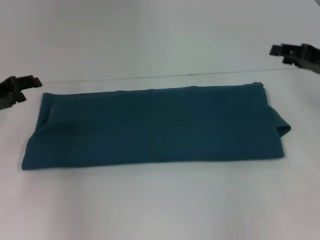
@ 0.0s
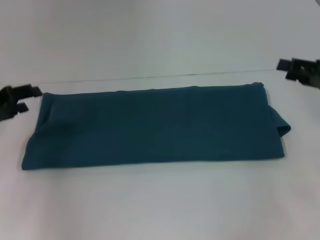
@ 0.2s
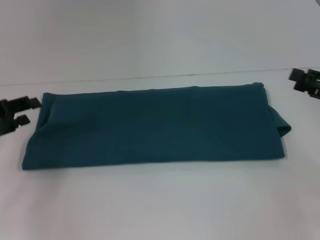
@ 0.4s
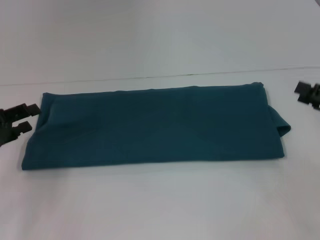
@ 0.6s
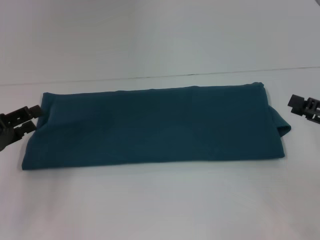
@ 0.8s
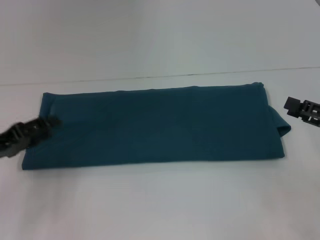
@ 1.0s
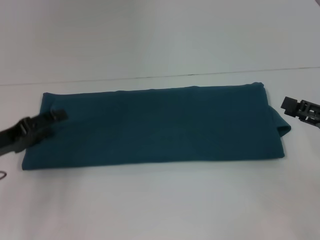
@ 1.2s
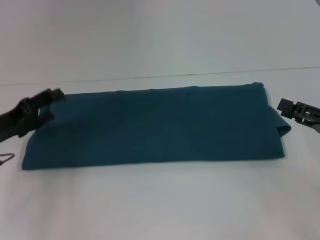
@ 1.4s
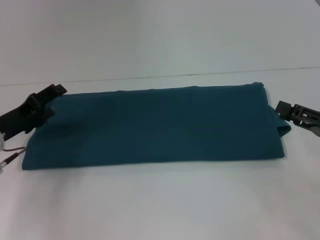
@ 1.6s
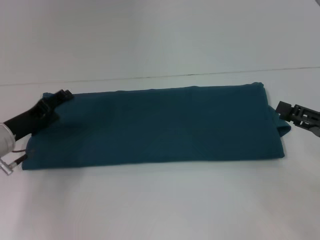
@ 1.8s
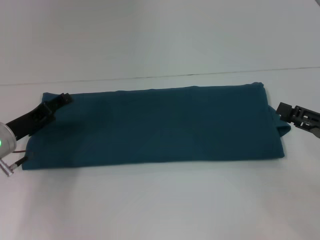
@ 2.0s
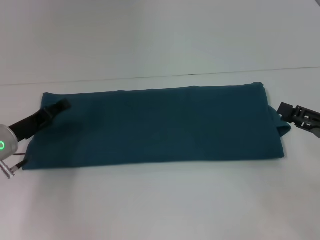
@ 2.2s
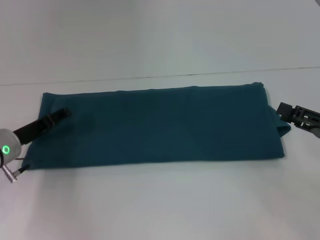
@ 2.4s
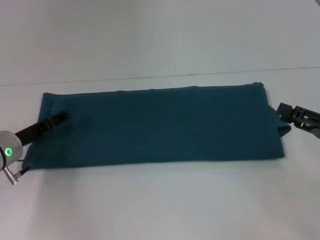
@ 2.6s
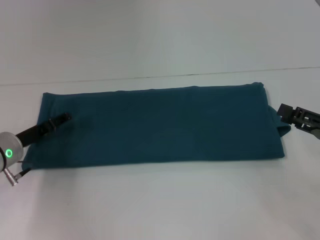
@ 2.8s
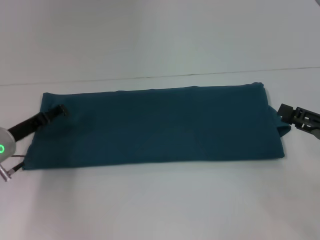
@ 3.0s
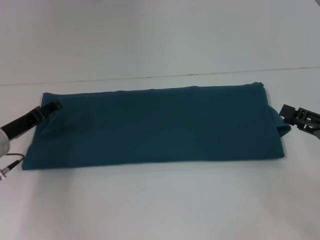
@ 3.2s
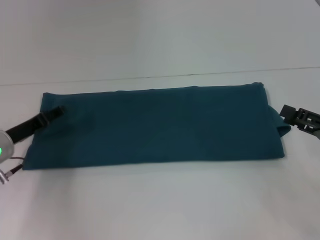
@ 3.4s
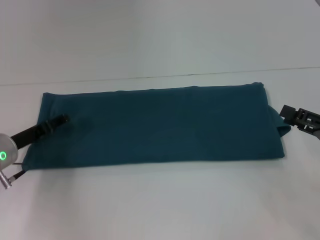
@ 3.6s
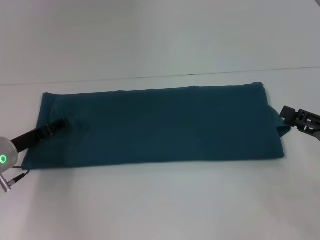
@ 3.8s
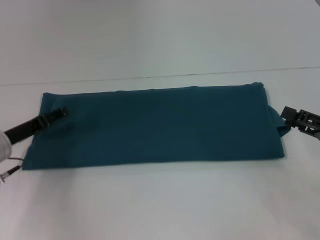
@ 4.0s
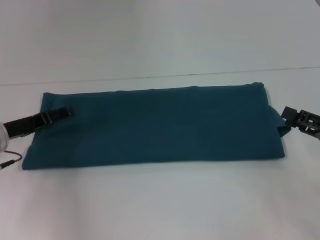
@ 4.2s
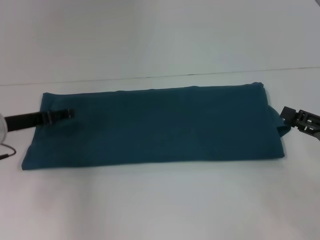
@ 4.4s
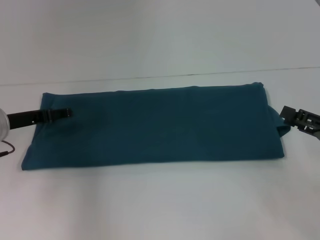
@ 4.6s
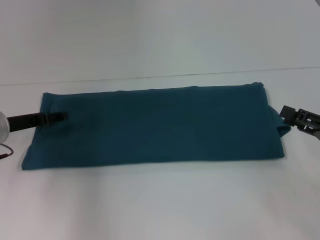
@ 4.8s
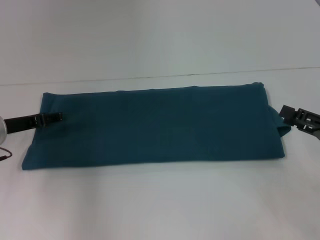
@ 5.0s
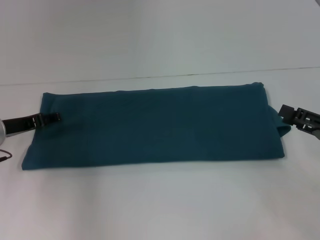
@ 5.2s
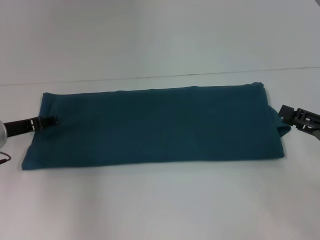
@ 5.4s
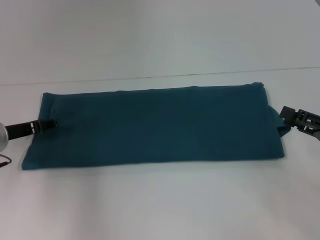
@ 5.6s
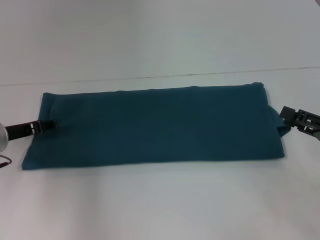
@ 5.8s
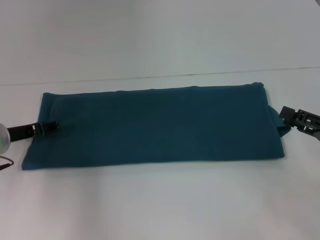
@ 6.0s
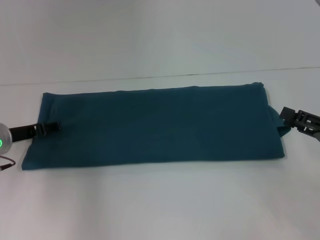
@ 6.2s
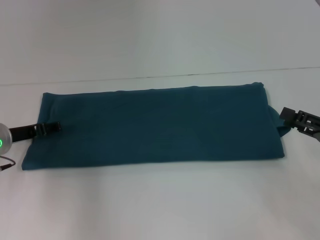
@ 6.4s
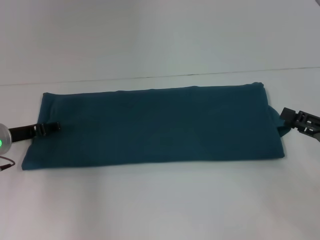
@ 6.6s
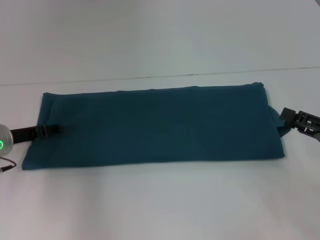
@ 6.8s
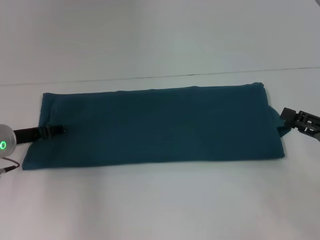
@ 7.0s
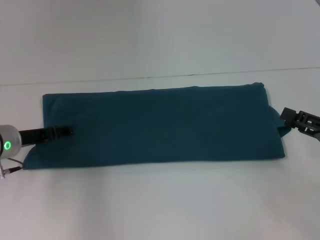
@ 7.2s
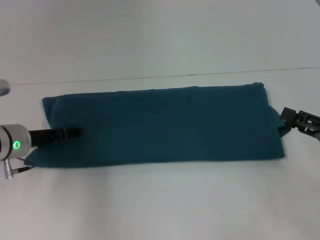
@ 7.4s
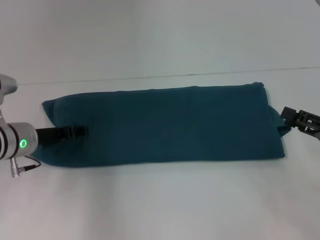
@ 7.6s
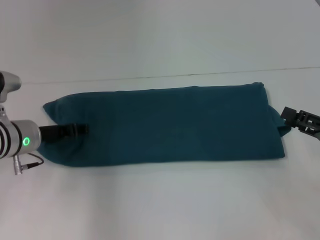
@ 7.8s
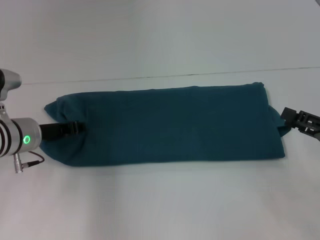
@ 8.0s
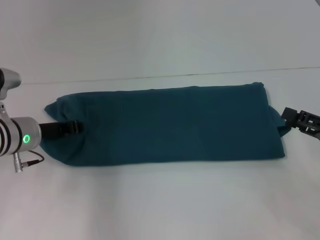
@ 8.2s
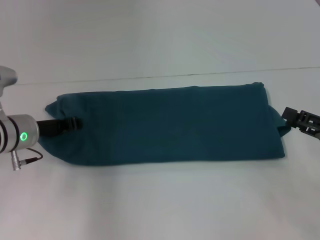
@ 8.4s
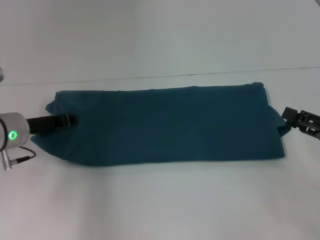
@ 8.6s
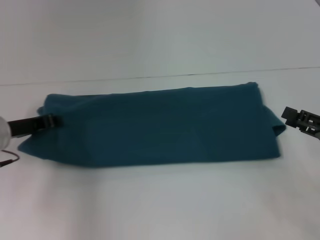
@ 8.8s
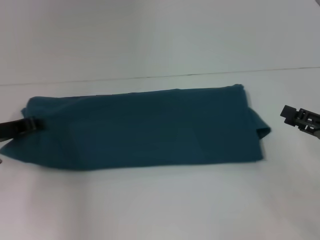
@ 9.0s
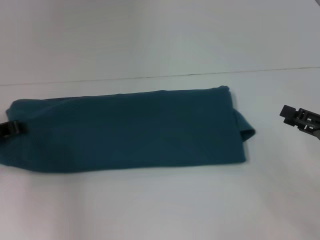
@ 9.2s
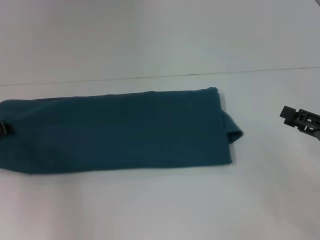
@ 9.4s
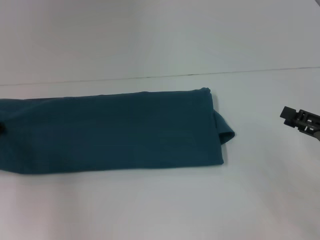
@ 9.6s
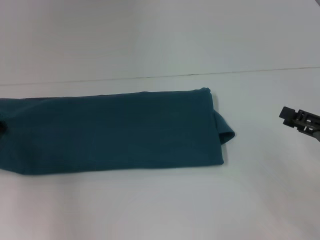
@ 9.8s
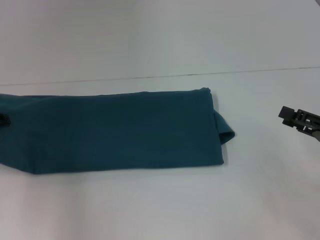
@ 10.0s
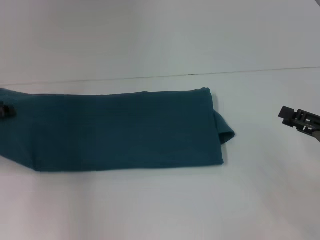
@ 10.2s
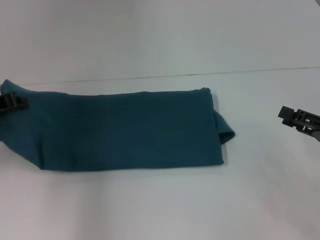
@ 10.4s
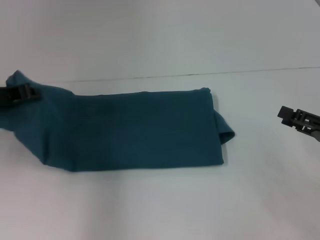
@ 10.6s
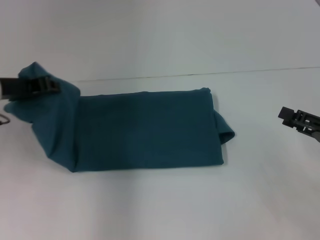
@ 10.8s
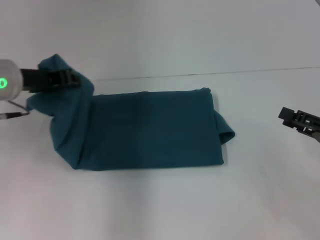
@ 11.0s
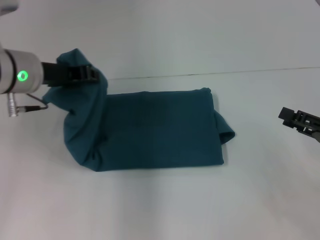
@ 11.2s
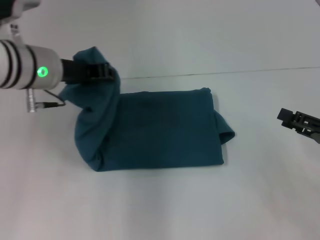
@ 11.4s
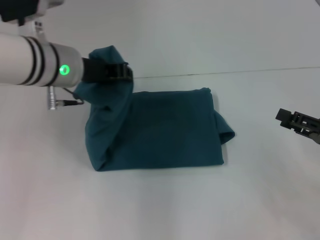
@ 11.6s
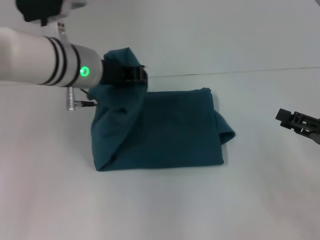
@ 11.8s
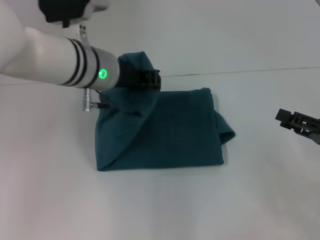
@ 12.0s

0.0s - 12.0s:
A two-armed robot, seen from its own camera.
0.0s - 1.6s: The right gripper goes roughly 10 cm backward and downward. The left gripper shifts about 5 cm downward.
4.4s - 7.6s: There are only small adjustments of the grippers.
7.6s - 9.0s: The left gripper is displaced to the left by some 5 cm, and closes its fingers.
9.0s - 10.4s: The left gripper shifts roughly 5 cm upward.
10.4s - 12.0s: The left gripper heads to the right, covering approximately 20 cm.

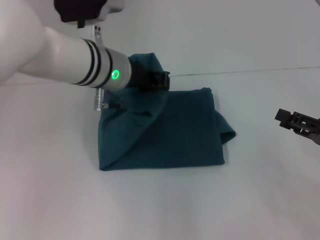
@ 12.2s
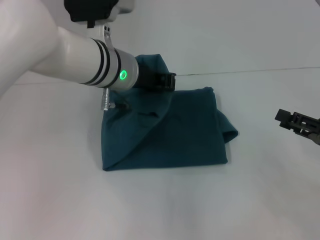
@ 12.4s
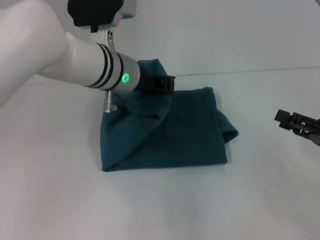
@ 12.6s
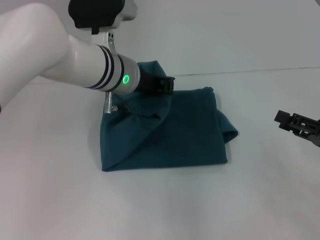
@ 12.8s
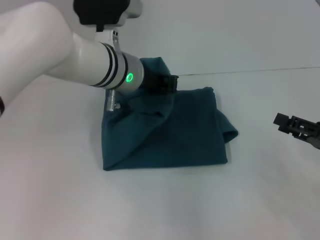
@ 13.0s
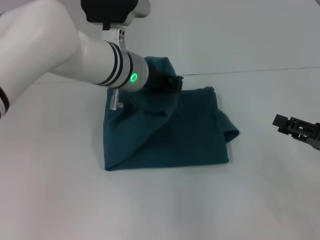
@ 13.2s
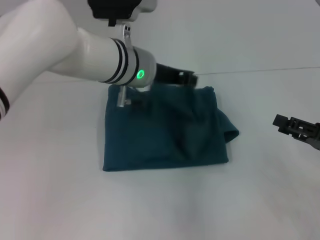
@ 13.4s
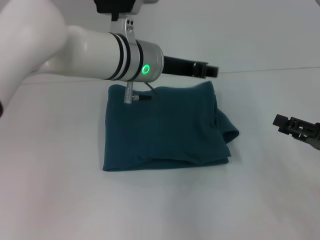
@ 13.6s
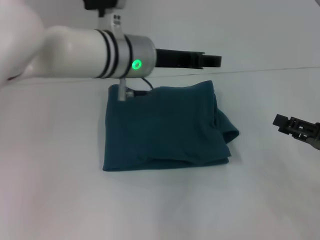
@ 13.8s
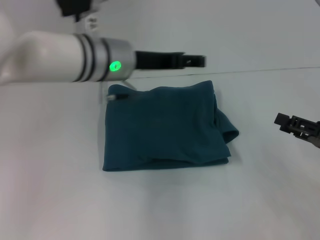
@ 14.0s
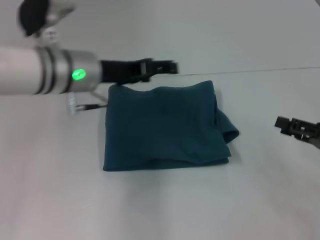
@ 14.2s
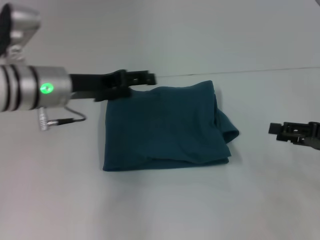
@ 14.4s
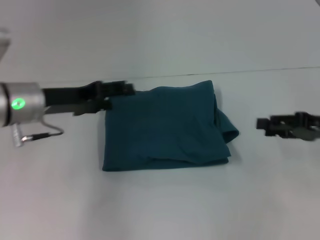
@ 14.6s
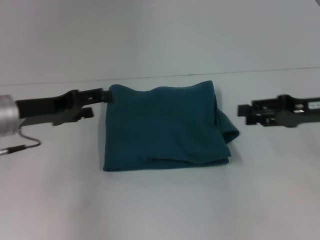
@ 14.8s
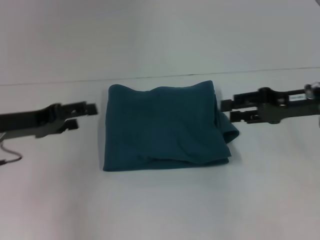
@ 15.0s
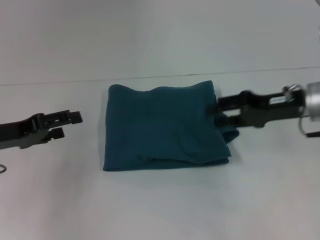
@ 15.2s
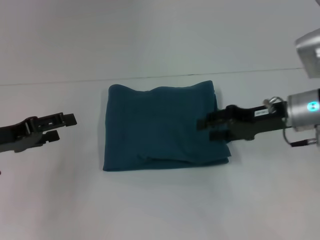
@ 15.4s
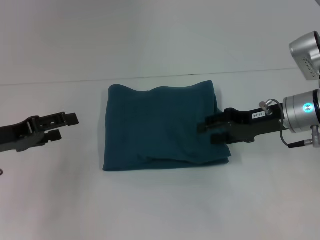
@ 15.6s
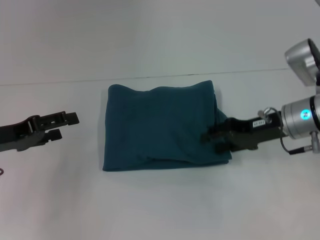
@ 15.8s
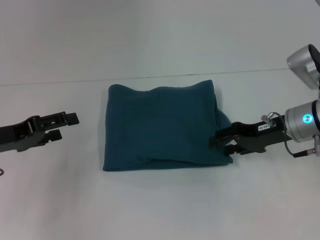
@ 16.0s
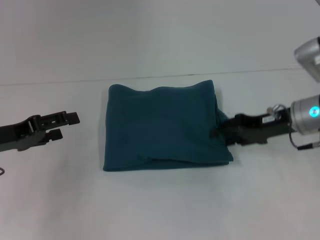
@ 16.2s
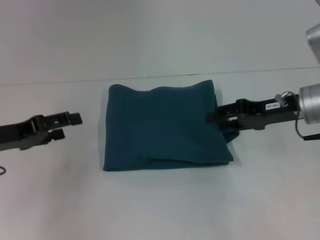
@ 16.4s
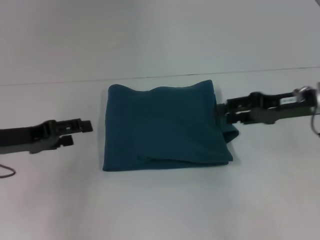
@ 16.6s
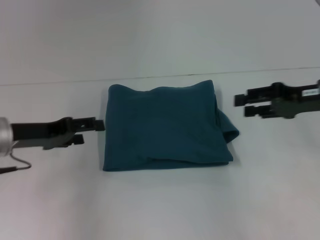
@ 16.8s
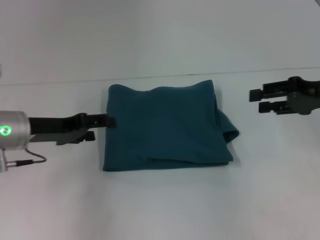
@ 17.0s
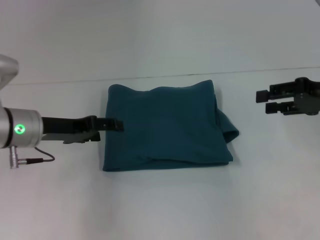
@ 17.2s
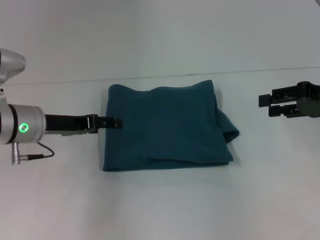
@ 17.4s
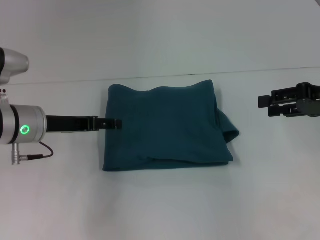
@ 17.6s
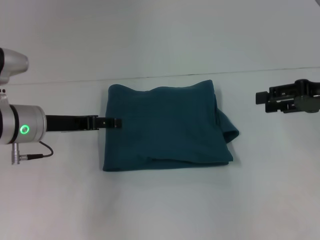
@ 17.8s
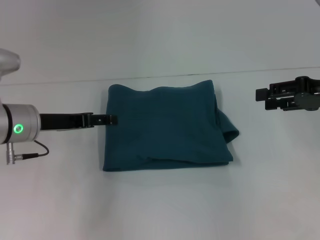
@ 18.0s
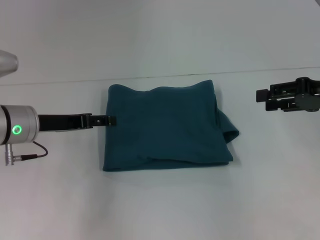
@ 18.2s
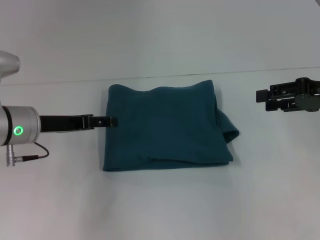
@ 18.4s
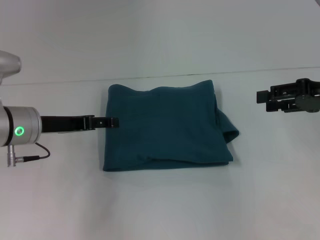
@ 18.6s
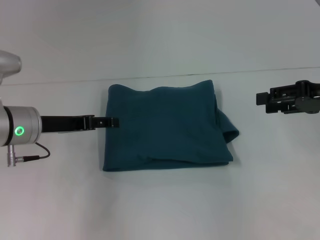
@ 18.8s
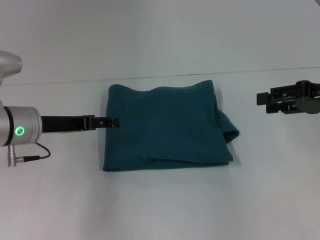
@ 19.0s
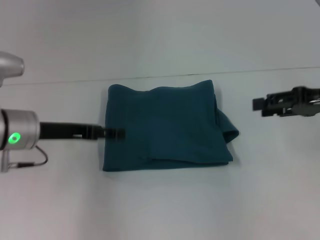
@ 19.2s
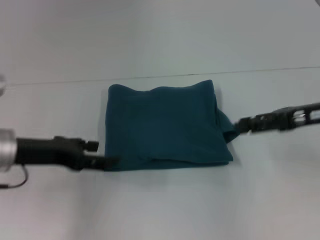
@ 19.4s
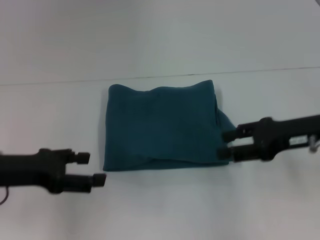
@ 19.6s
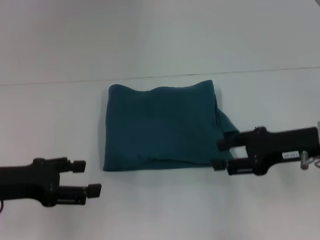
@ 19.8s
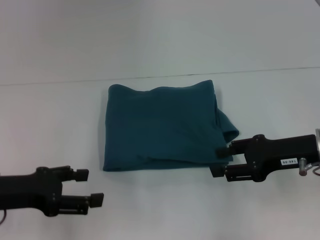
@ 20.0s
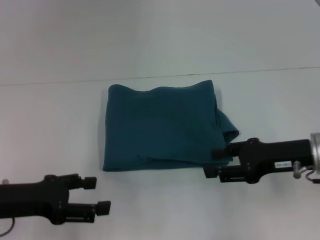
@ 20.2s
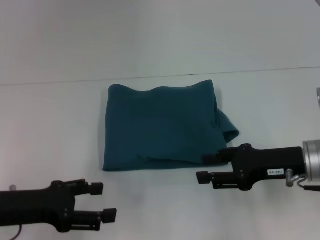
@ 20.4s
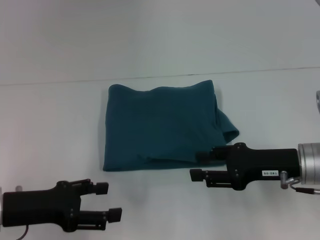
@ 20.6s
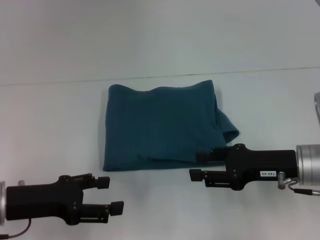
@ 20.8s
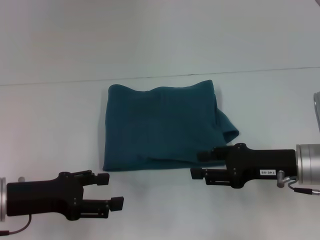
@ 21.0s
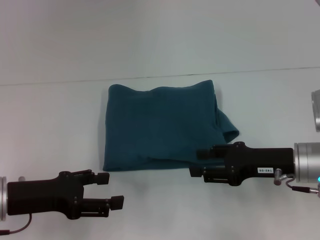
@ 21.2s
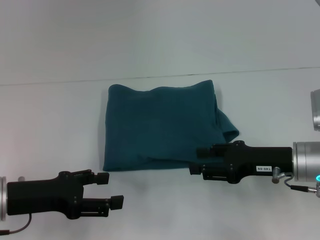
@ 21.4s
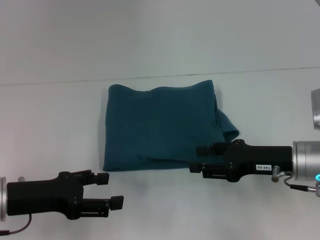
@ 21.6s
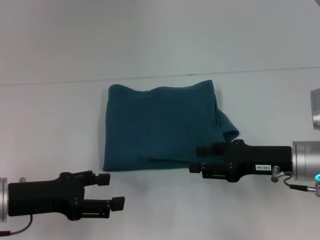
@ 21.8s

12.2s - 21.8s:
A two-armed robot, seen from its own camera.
12.2s - 13.8s: The left gripper opens.
13.8s - 15.4s: The left gripper shifts approximately 25 cm to the left, and opens up. Meanwhile the right gripper is displaced forward and to the left by approximately 15 cm.
15.4s - 17.0s: The two grippers go approximately 5 cm to the right.
17.0s - 18.6s: The grippers move only a little.
18.6s - 20.2s: The right gripper is displaced to the left, downward and backward by approximately 10 cm, while the left gripper goes approximately 10 cm backward.
20.2s - 21.8s: The grippers stay close to where they were, moving slightly.

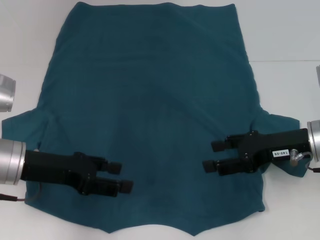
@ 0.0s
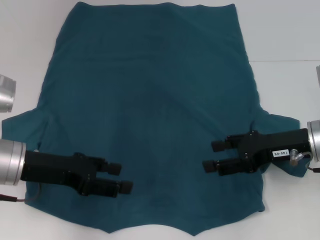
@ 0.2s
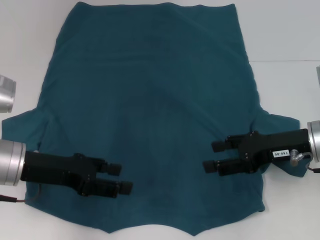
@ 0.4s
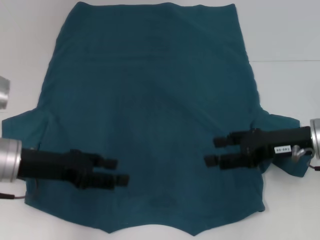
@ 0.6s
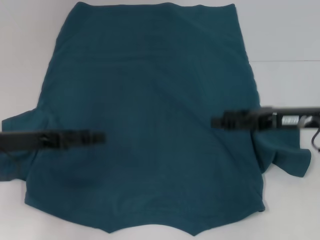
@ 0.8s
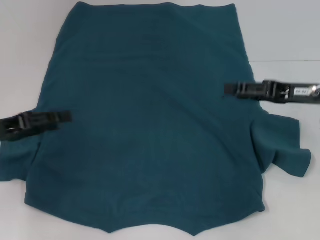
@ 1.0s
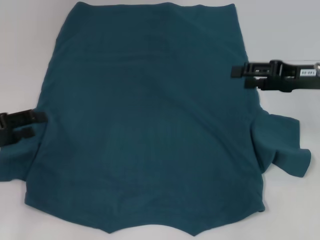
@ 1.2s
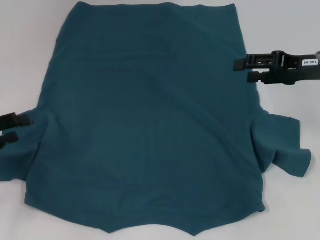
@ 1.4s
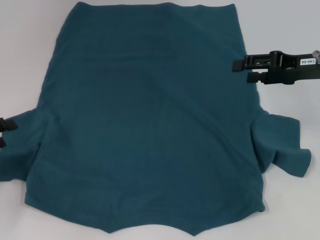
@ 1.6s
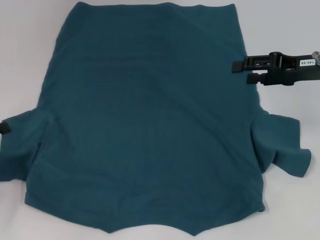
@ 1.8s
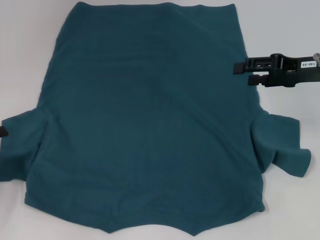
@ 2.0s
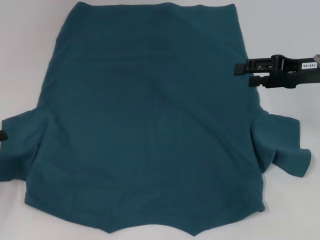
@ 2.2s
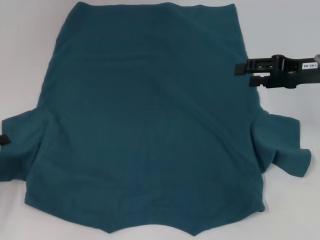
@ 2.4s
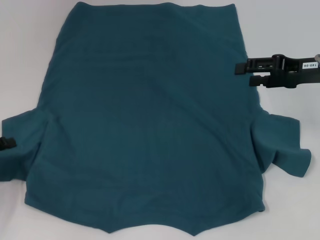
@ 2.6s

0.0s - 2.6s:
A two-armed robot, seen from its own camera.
0.0s - 1.2s: The left gripper travels to the left by roughly 10 cm. The right gripper heads forward, covering roughly 5 cm.
1.2s - 2.6s: The left gripper shifts approximately 5 cm downward.
